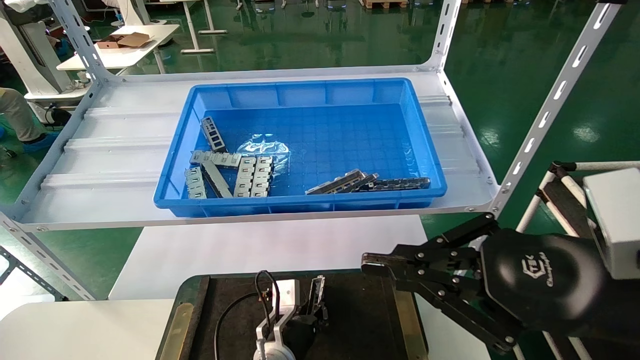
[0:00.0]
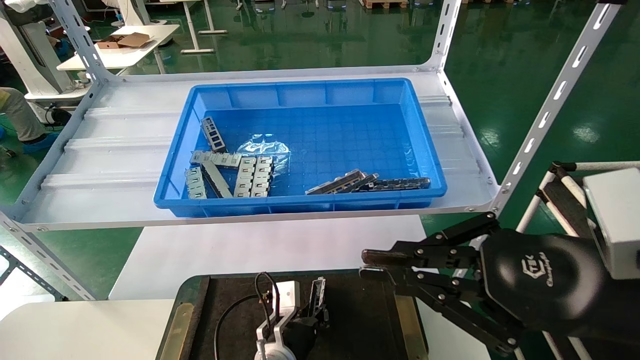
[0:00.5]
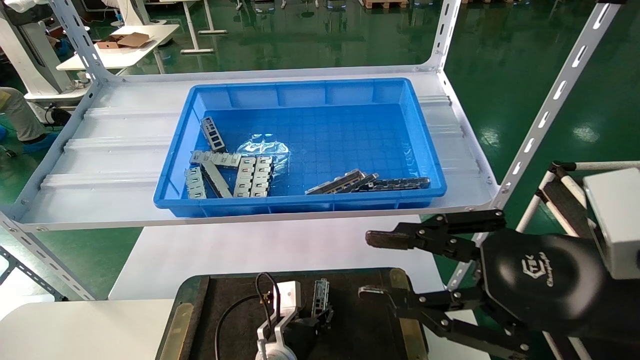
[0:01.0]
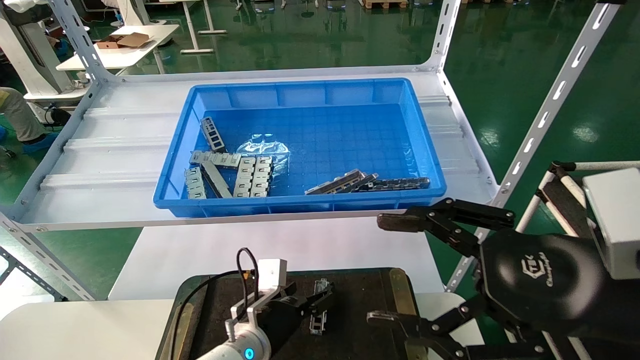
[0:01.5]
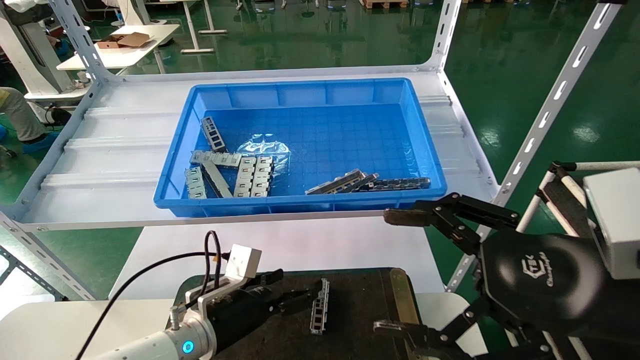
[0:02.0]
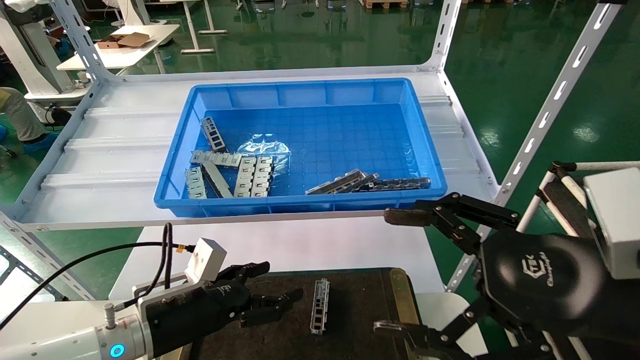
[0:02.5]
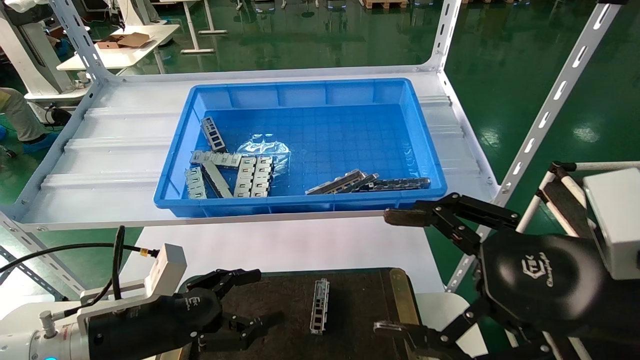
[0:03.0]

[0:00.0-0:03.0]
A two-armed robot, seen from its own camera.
Task of the whole recording: Grasp the part with one hand and place it on the black container.
0:00.0 to 0:01.5: The right gripper opens; the left gripper moves upward, approximately 5 cm, and opens up.
0:01.5 to 0:03.0: The left gripper shifts some 20 cm to the left, upward and backward.
